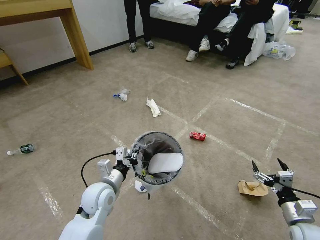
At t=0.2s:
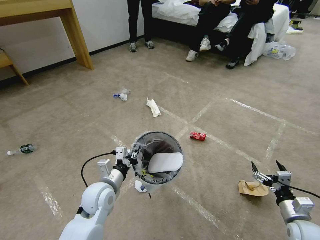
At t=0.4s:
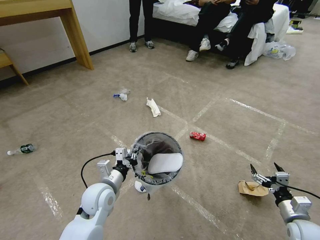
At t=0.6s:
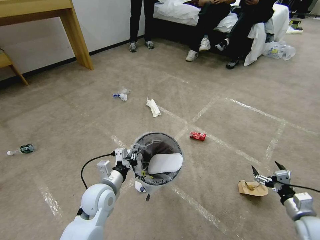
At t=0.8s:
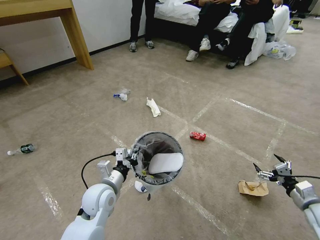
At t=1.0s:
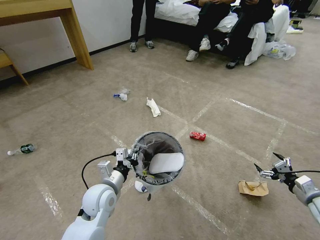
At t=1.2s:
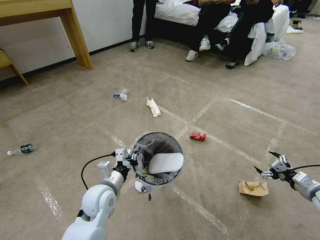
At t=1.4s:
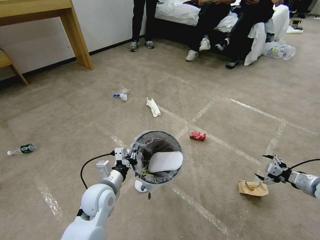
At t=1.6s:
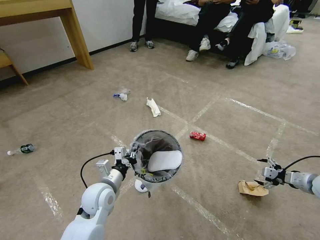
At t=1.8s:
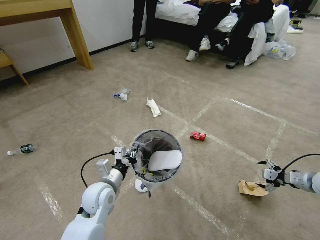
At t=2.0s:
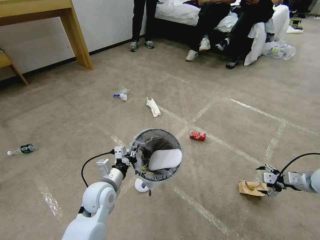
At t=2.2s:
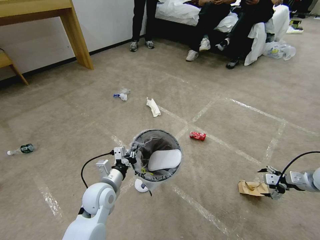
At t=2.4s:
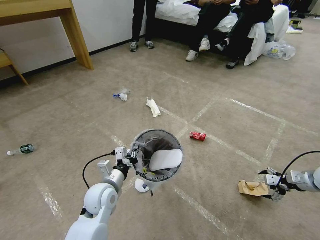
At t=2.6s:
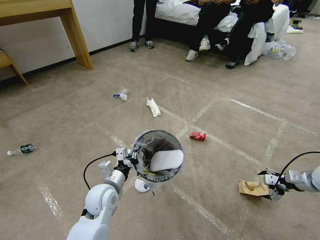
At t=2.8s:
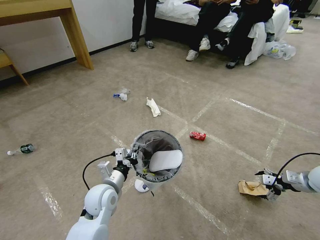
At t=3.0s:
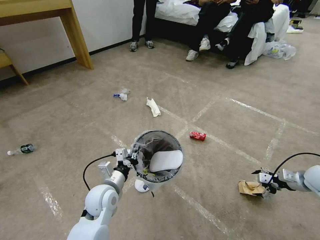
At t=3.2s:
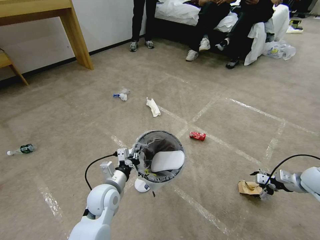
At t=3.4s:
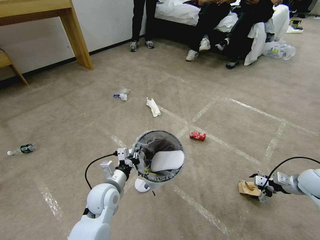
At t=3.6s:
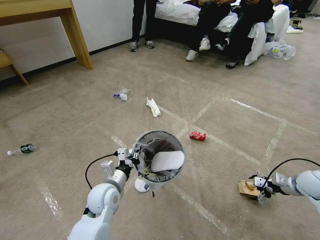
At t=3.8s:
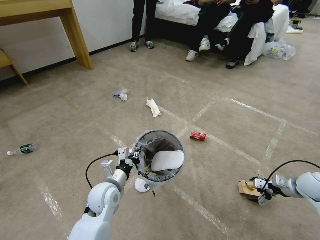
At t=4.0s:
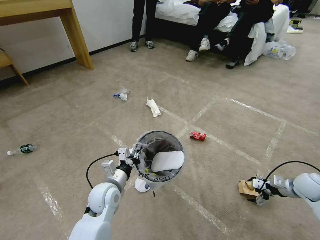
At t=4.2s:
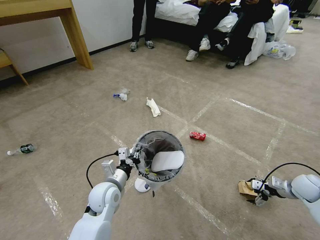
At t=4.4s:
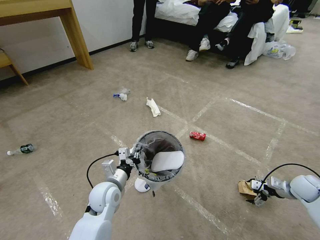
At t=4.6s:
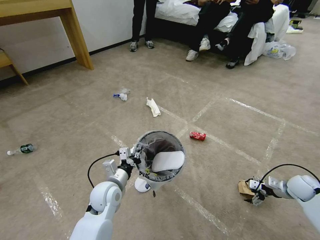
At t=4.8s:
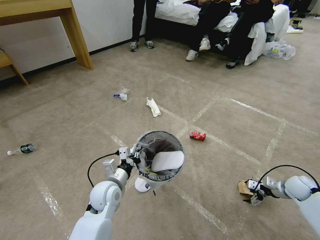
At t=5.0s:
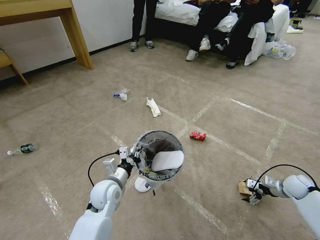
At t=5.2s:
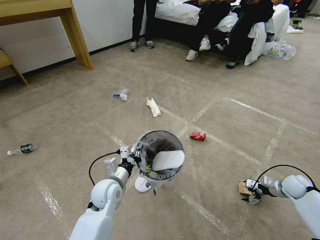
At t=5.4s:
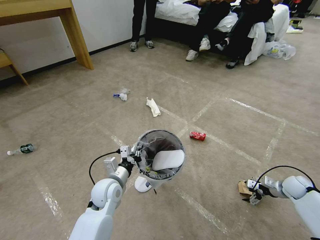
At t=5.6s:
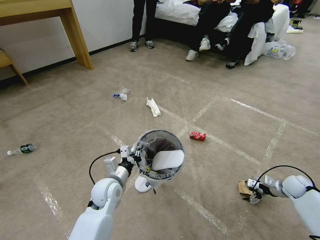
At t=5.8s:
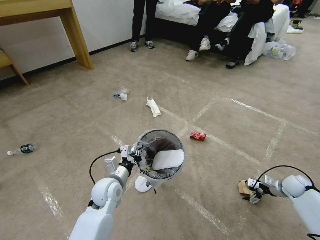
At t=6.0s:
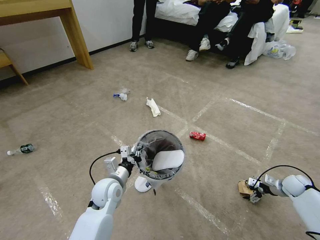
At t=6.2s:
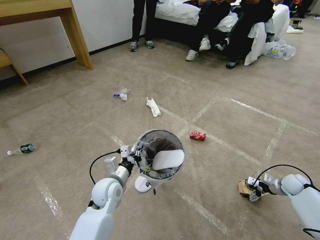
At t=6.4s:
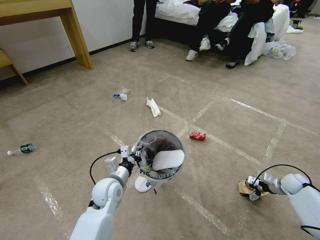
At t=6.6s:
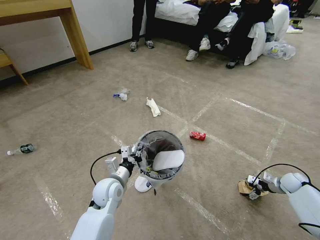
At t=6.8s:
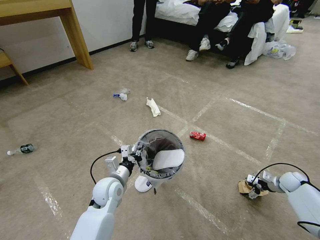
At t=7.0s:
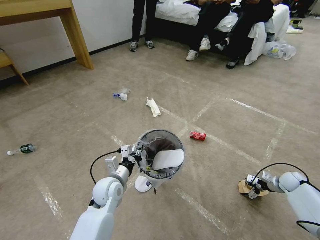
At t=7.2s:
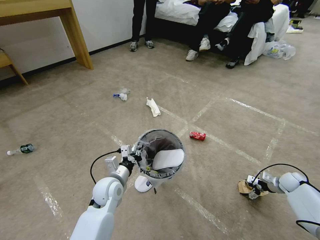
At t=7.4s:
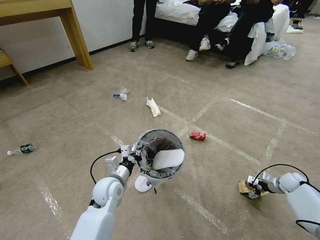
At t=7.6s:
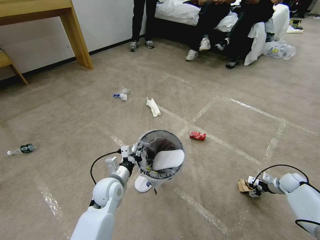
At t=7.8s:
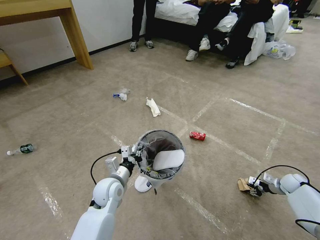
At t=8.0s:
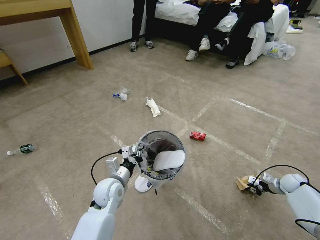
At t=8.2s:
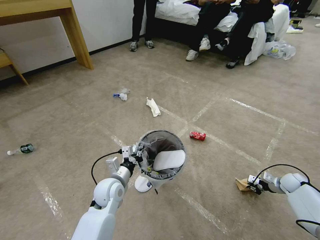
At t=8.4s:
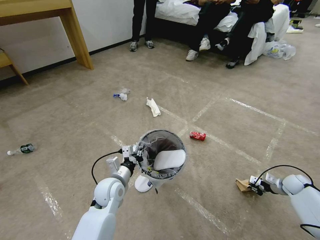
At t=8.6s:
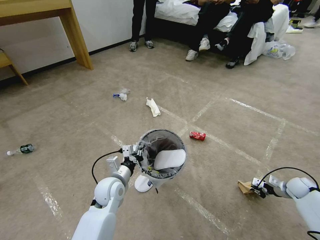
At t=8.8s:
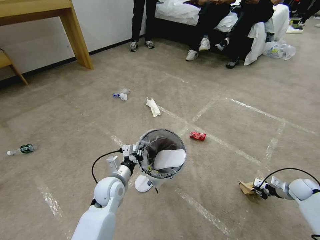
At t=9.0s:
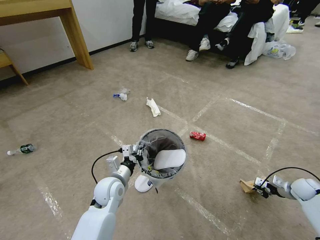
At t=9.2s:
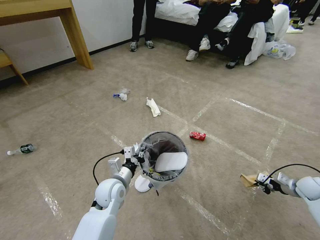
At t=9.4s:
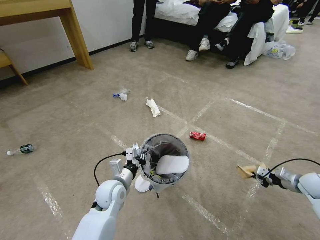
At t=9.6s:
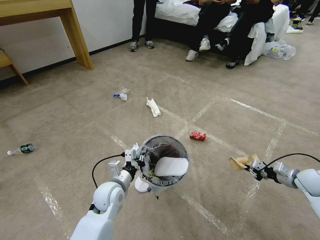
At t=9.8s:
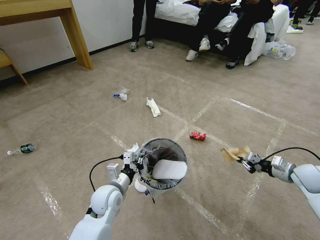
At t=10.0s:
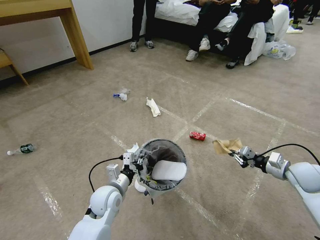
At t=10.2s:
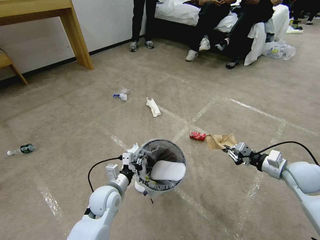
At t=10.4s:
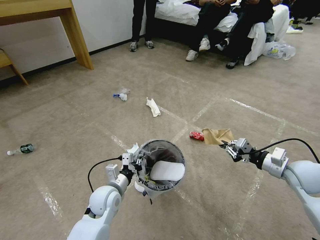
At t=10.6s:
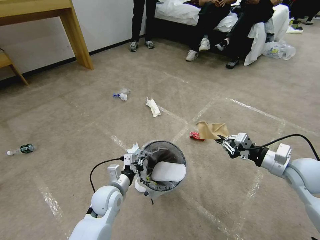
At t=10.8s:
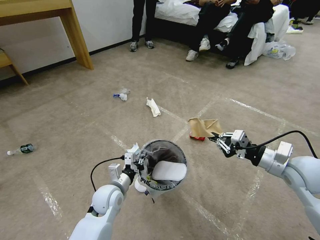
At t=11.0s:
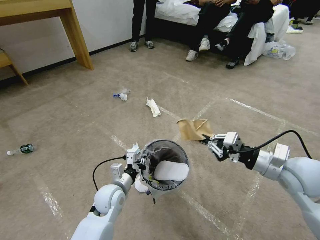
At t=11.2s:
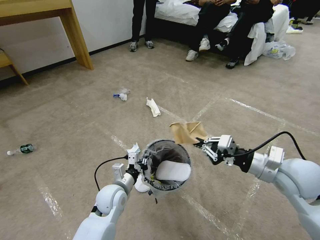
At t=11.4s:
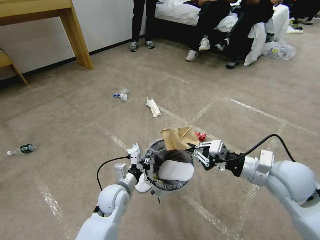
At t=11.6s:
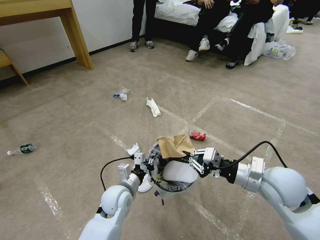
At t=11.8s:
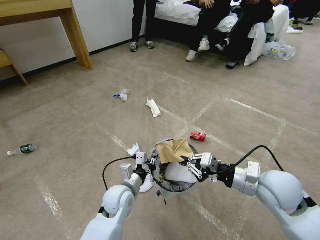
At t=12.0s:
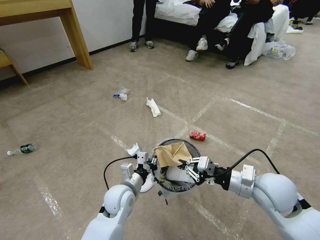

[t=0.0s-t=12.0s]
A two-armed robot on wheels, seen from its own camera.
Task of the whole recording: Pick up the trash bin and place the garbage on the floor into it.
t=0.0s to t=1.6s: The right gripper heads forward, to the right and upward, covering some 20 cm.
t=3.0s to t=4.4s: The right gripper goes roughly 5 cm downward.
t=4.4s to t=6.0s: The right gripper goes roughly 5 cm downward.
t=6.0s to t=7.6s: The right gripper closes.
t=7.6s to t=9.0s: The right gripper changes place by about 5 cm, and closes.
t=9.0s to t=10.4s: The right gripper shifts some 25 cm upward and to the left.
t=10.4s to t=12.0s: The right gripper shifts approximately 15 cm to the left, while the left gripper moves to the right, about 5 cm.

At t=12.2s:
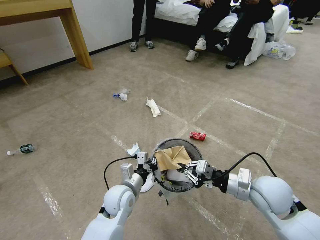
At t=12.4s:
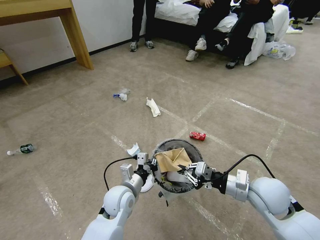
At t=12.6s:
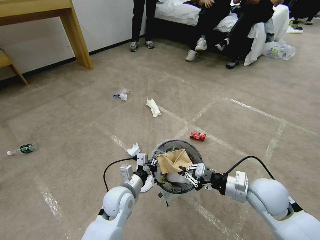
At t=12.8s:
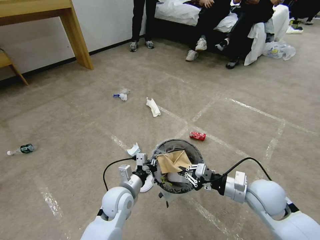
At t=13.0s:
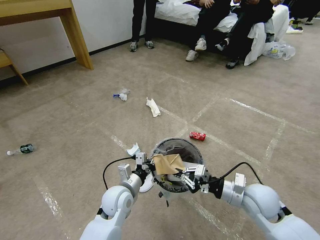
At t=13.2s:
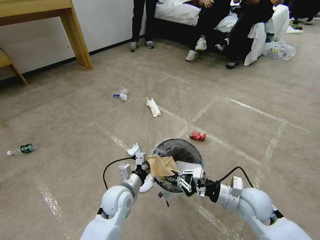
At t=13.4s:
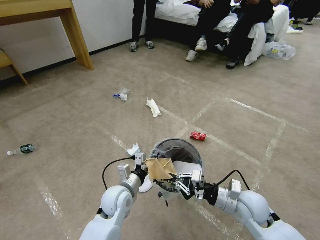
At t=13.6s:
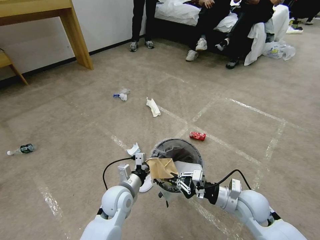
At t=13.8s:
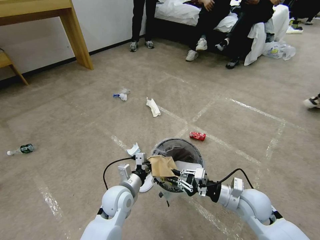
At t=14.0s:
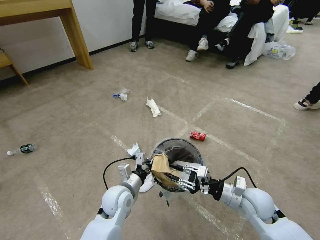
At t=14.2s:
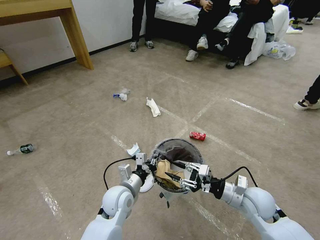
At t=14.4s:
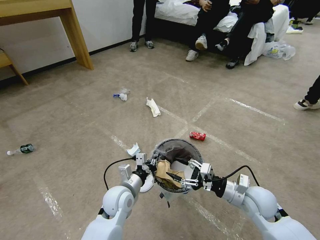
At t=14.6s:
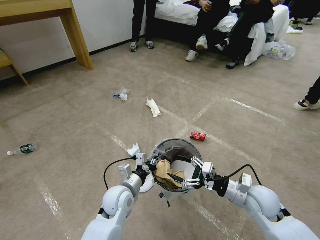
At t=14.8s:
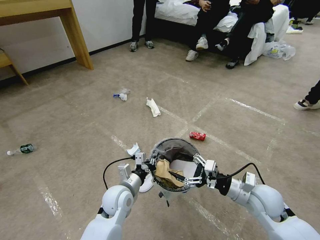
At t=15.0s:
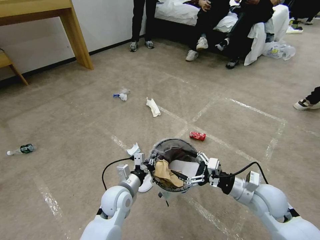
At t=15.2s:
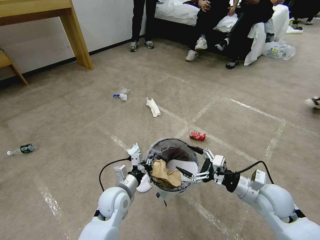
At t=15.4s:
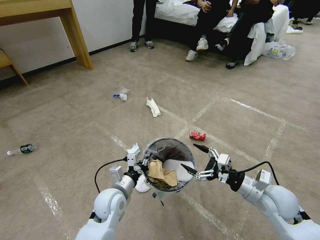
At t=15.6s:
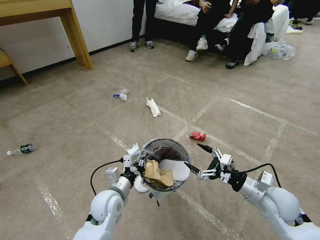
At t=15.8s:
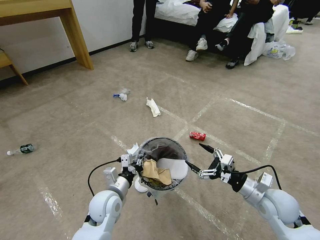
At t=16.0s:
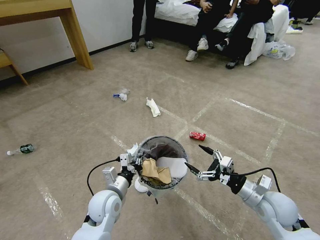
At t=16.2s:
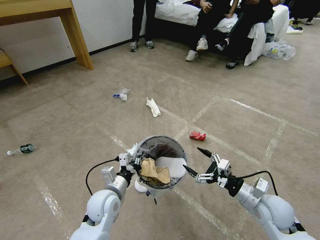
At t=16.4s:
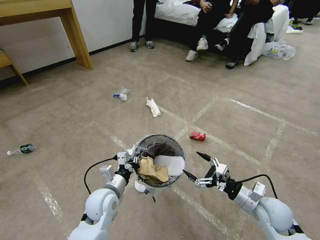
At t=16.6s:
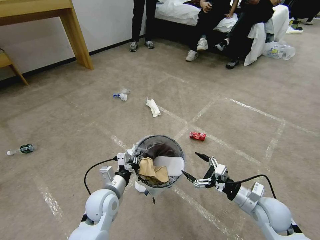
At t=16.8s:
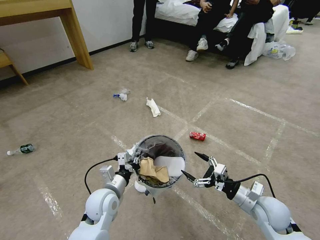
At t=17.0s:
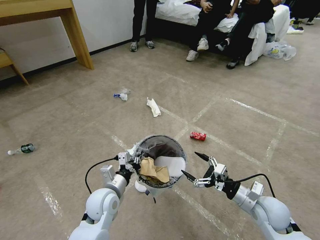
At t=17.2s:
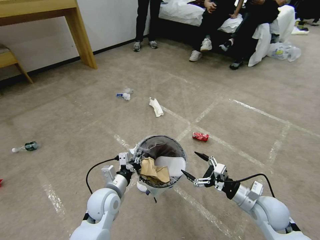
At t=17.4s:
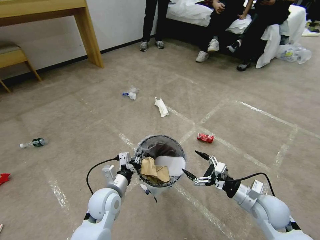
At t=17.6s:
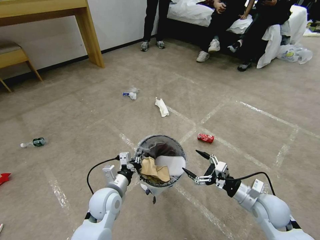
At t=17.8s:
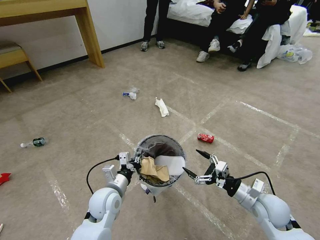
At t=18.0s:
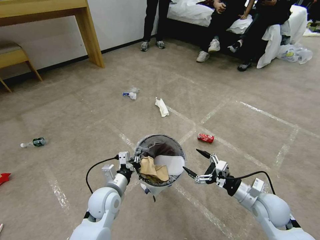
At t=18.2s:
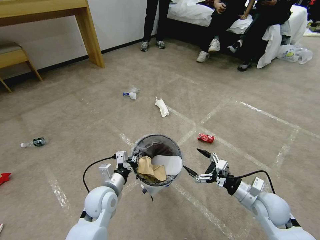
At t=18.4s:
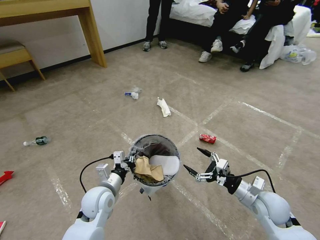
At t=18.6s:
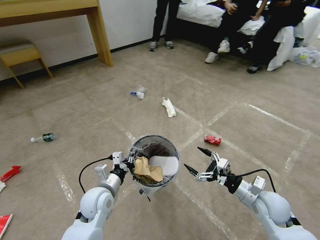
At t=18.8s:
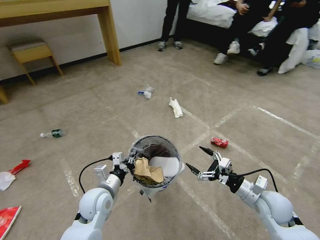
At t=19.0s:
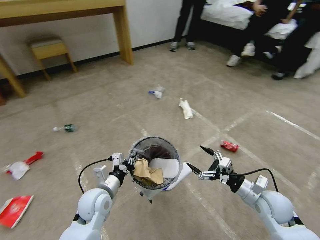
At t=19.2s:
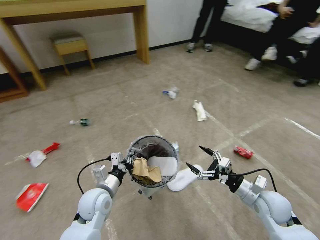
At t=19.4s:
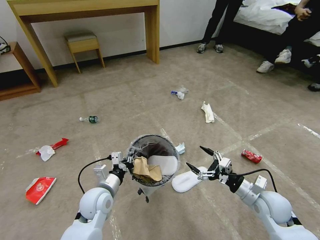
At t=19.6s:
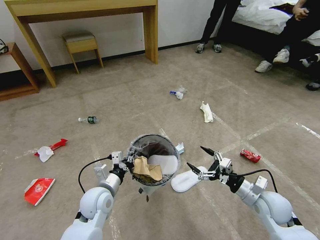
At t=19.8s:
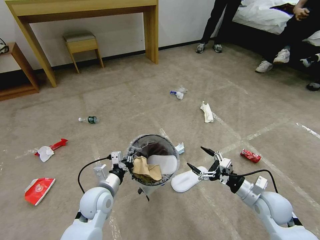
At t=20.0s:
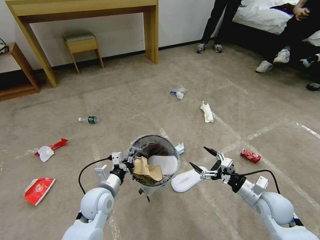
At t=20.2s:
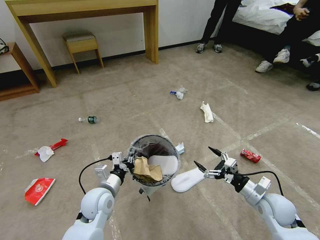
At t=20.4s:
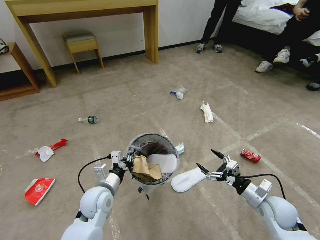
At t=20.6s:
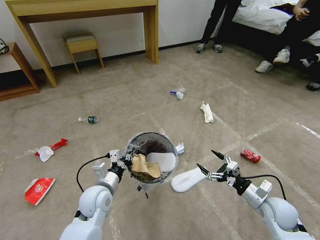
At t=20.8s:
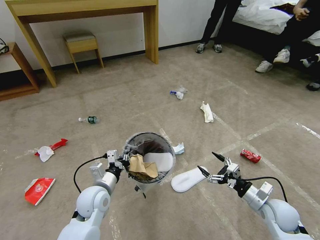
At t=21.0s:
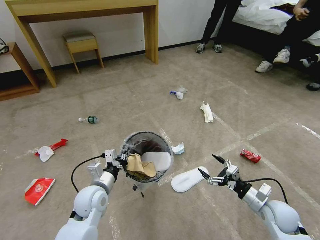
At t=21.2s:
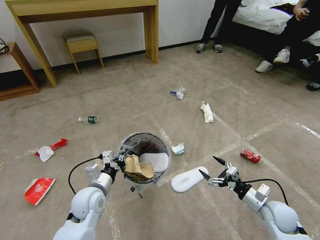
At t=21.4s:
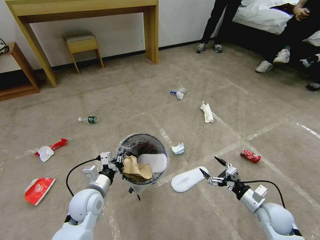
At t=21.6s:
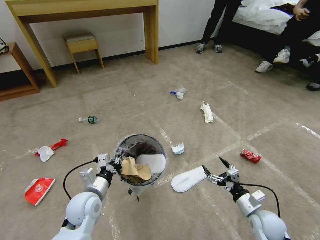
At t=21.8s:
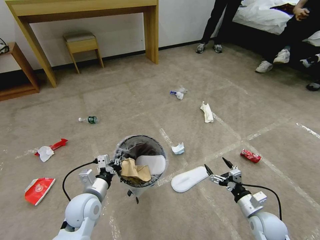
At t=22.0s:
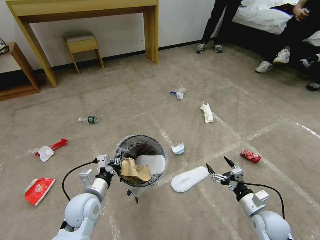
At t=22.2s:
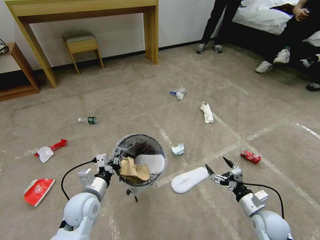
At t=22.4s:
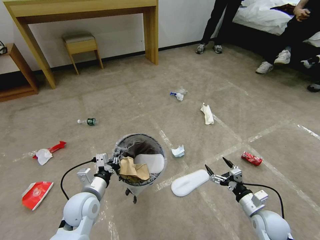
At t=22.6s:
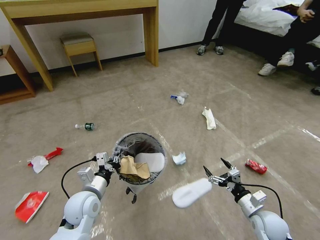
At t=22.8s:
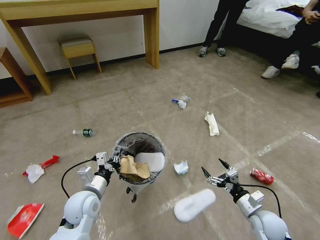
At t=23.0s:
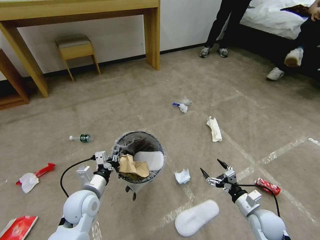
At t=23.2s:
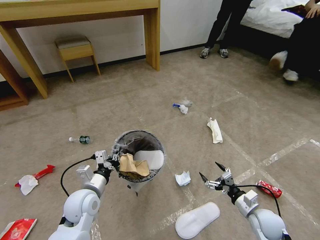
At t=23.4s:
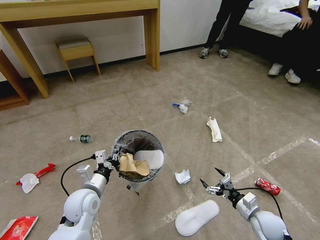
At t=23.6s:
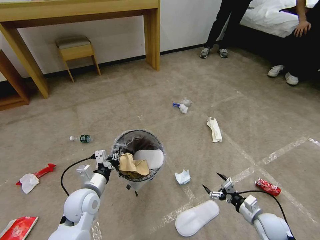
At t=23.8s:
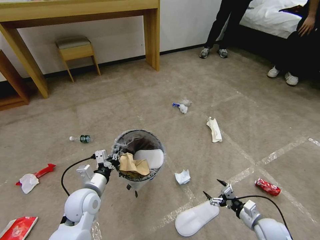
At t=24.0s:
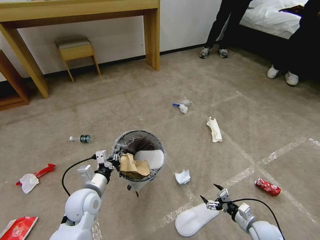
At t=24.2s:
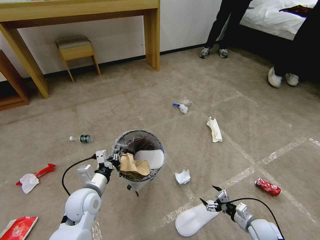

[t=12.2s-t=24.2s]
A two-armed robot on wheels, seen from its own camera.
Task of the whole recording: Pick up the trash bin and place the garbage on the floor into it.
t=12.2s to t=13.8s: The right gripper shifts roughly 10 cm downward.
t=13.8s to t=15.2s: The right gripper changes place by approximately 5 cm, and opens up.
t=15.2s to t=16.6s: The right gripper moves about 5 cm.
t=19.8s to t=21.2s: The right gripper ends up about 5 cm from where it was.
t=22.6s to t=24.2s: The right gripper moves downward, about 10 cm.
